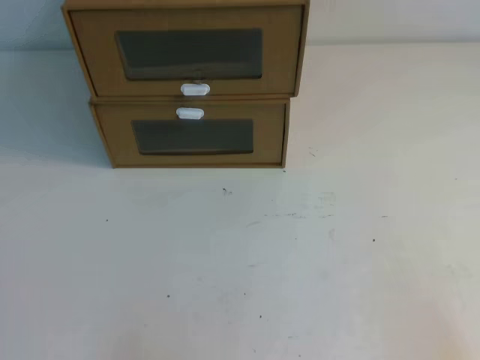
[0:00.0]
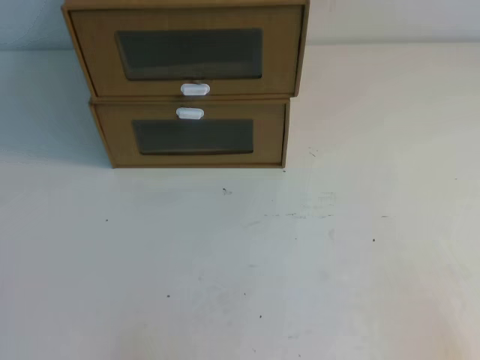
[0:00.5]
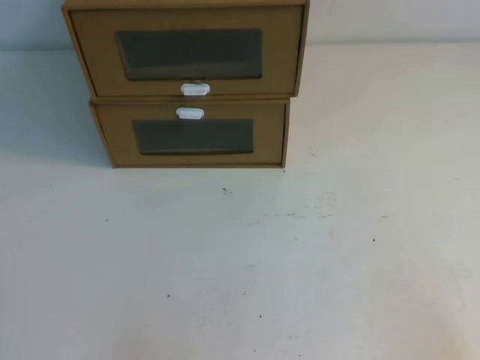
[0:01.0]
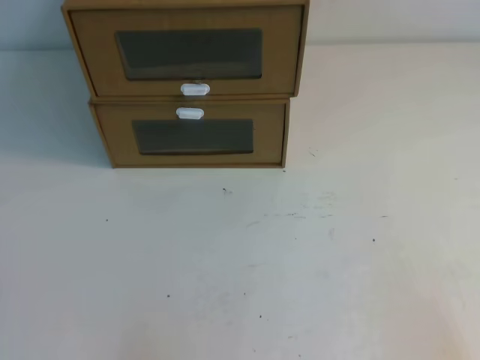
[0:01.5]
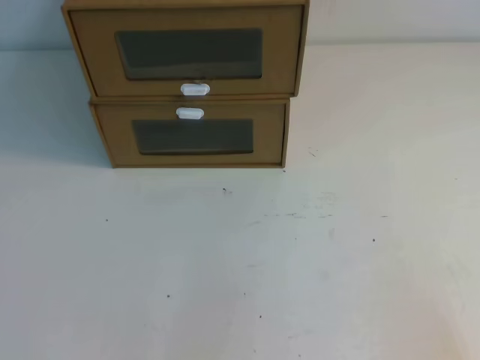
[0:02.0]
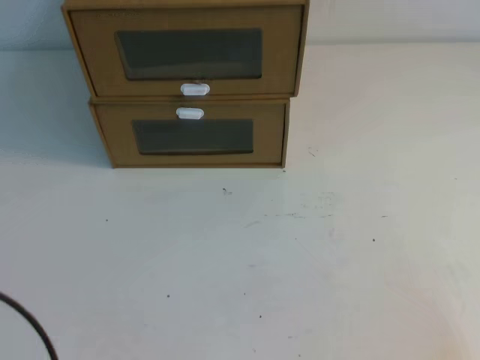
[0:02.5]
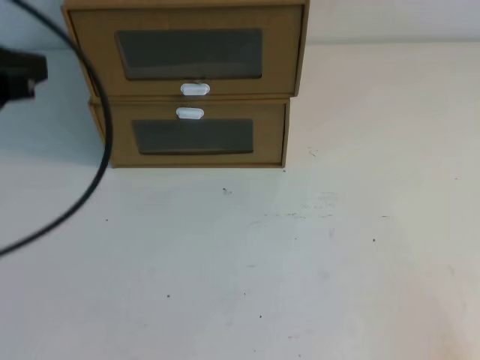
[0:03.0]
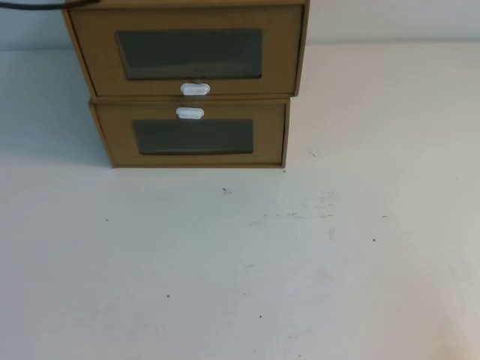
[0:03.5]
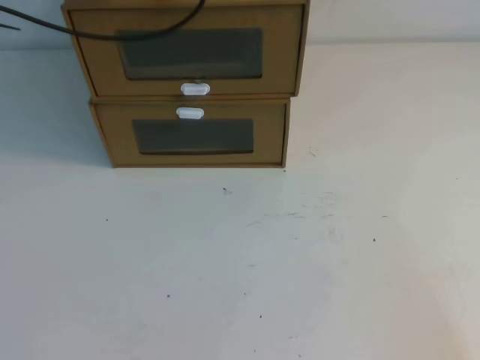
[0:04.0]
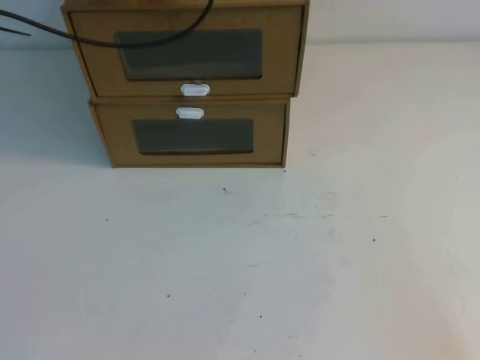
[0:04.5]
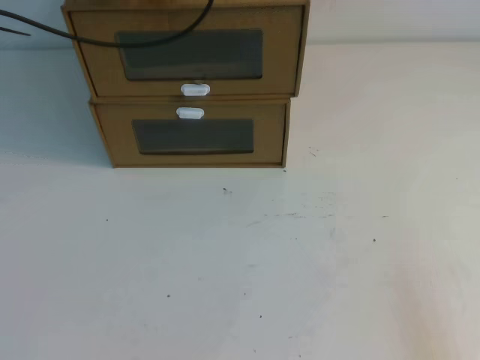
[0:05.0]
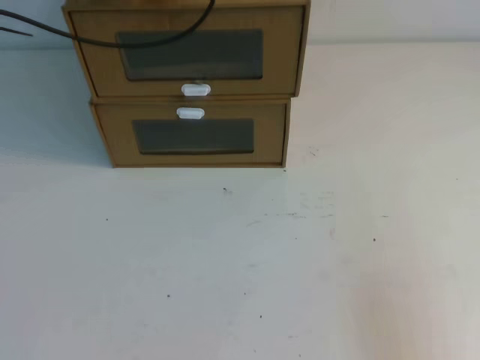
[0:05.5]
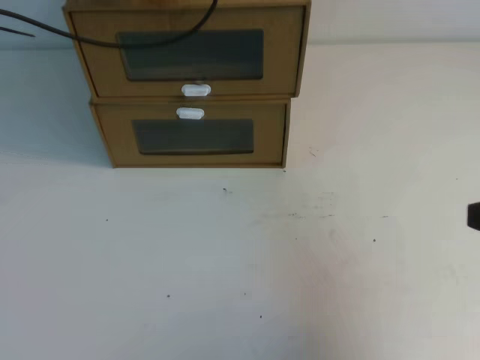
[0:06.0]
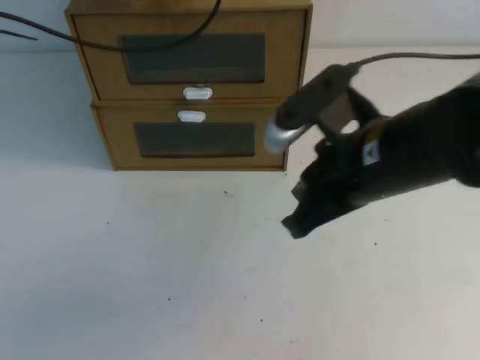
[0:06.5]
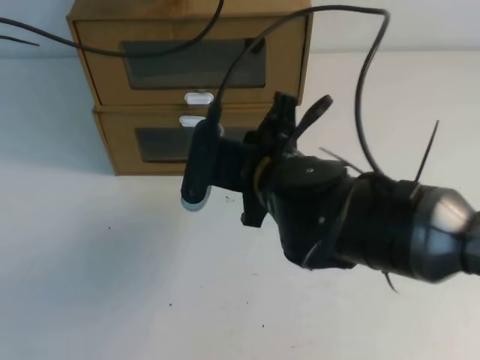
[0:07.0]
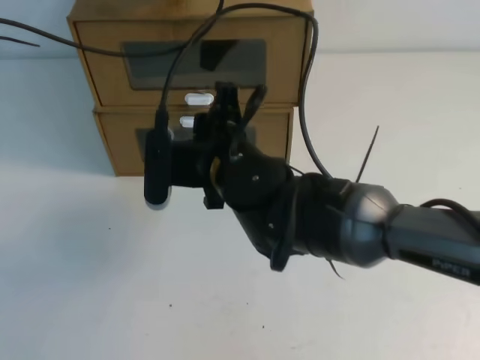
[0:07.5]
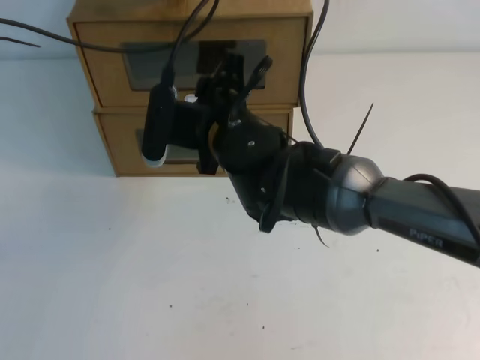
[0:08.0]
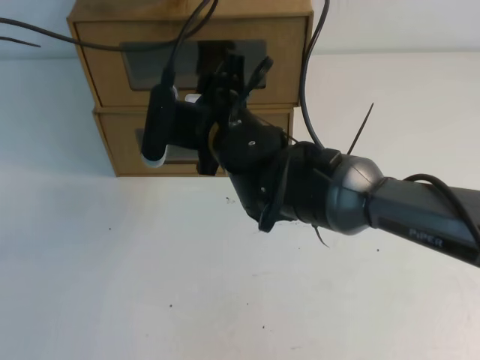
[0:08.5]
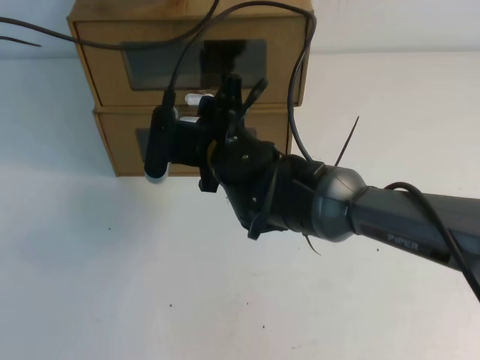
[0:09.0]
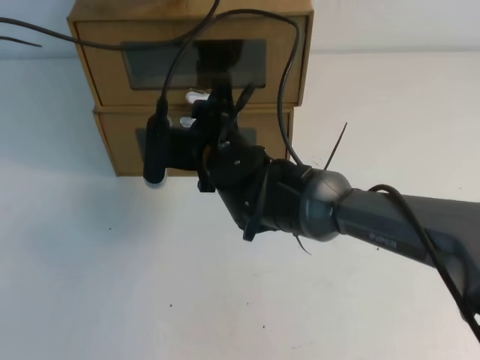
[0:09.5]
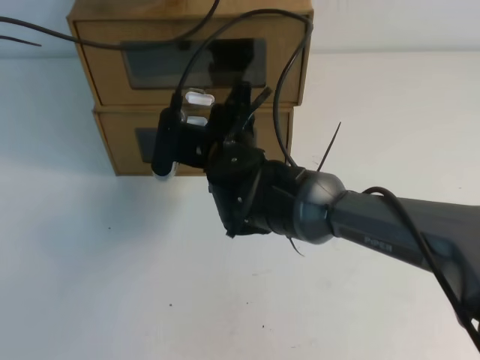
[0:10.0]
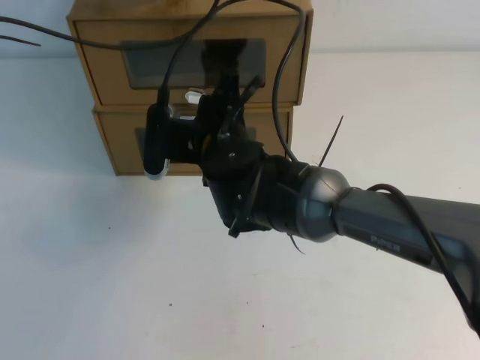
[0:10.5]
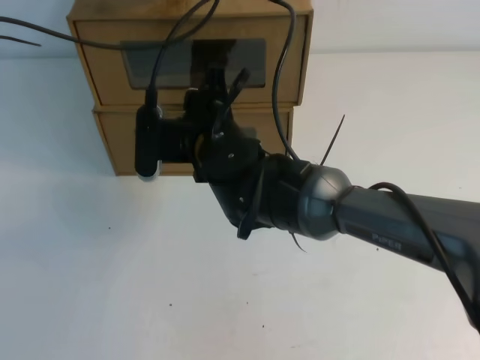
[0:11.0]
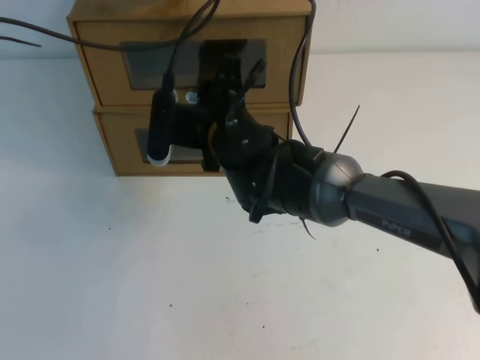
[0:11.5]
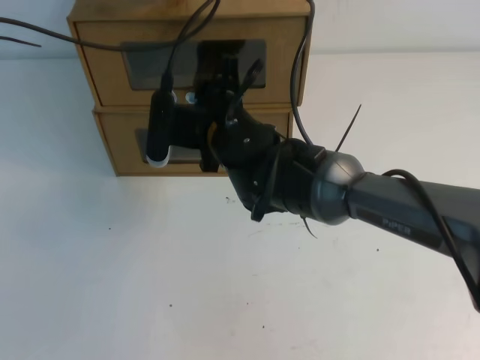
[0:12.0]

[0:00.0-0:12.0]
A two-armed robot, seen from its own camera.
Task of the whole recording: open the shoebox on the table.
0:04.0 to 0:06.0: The right gripper heads upward and forward, covering roughly 15 cm.
0:06.0 to 0:08.0: The right gripper travels to the left and forward by roughly 35 cm, and opens its fingers.
0:08.0 to 0:12.0: The grippers make only small movements.

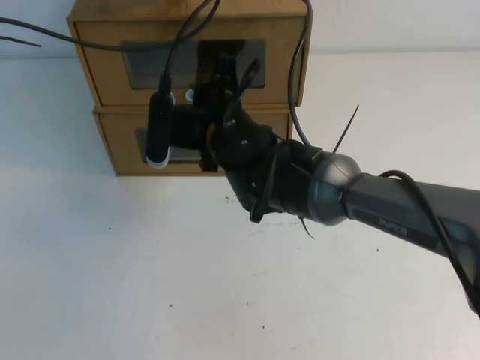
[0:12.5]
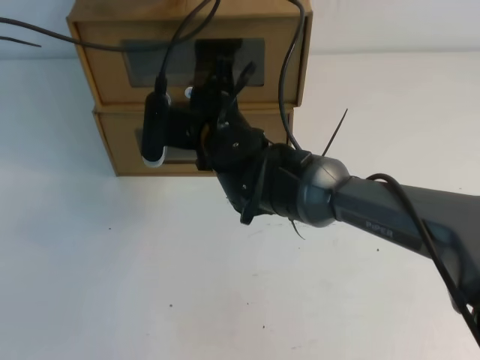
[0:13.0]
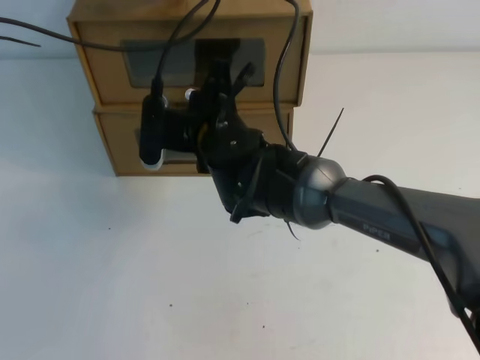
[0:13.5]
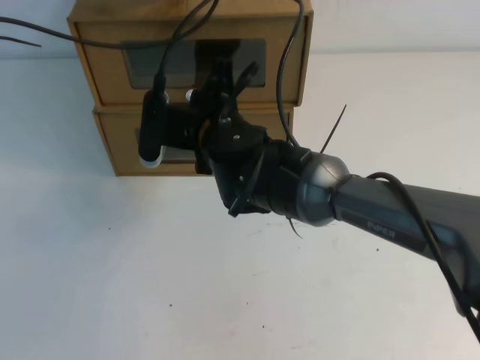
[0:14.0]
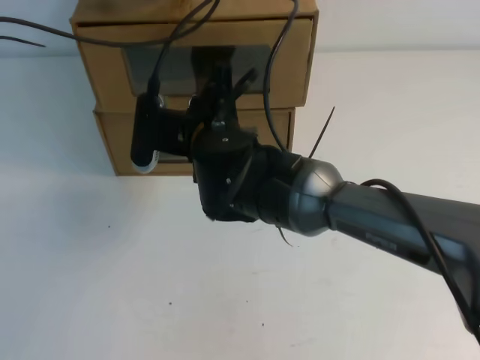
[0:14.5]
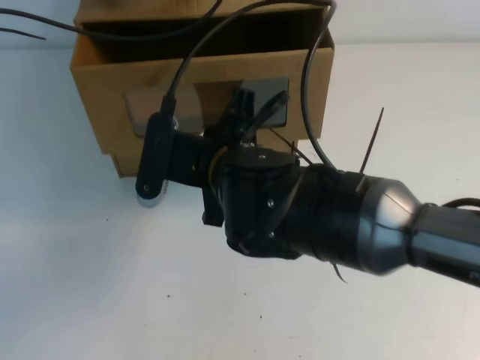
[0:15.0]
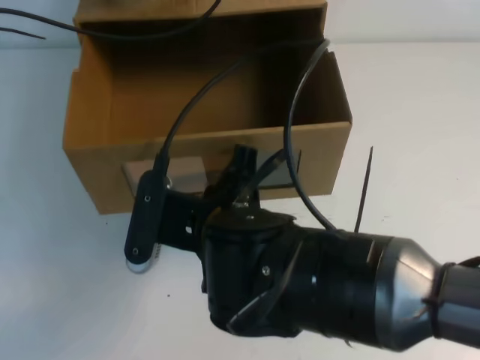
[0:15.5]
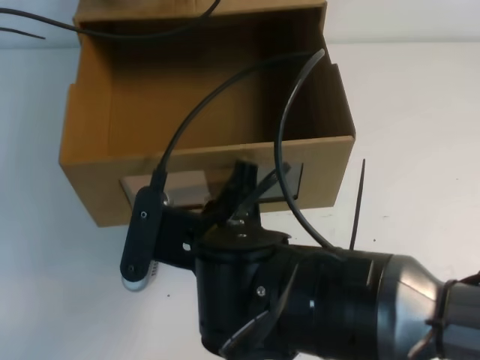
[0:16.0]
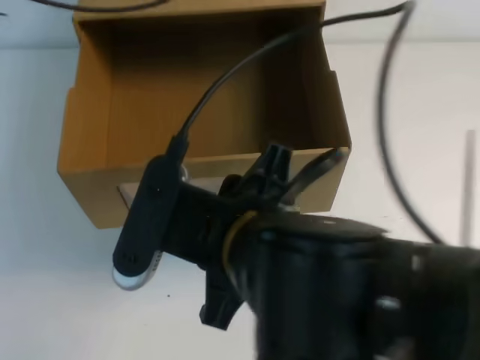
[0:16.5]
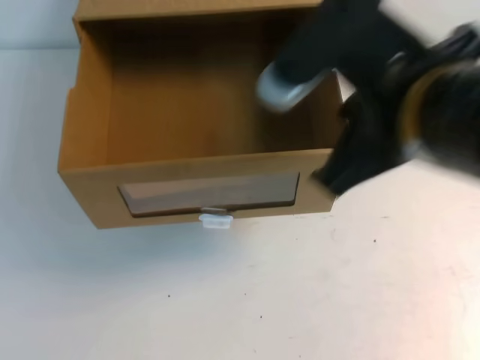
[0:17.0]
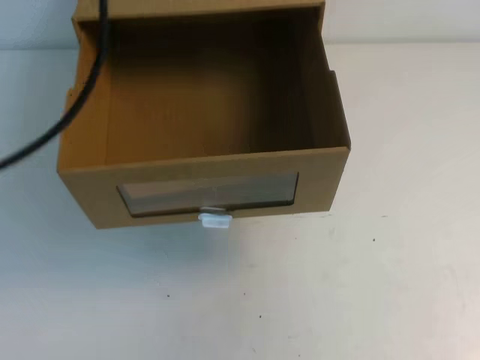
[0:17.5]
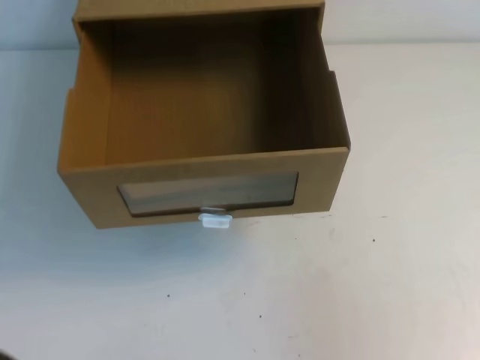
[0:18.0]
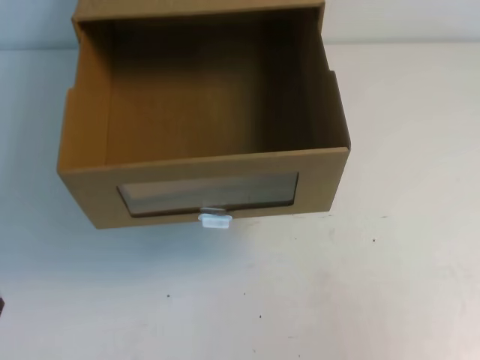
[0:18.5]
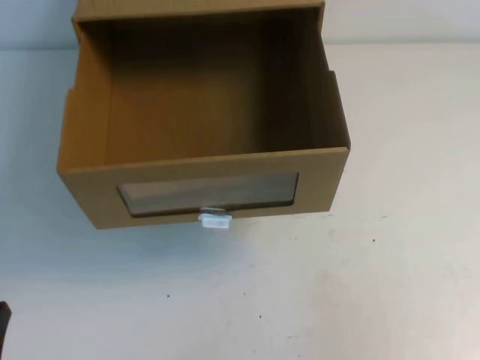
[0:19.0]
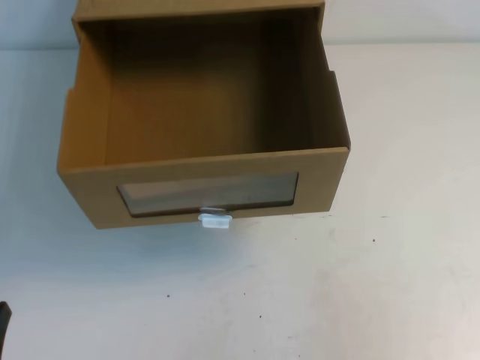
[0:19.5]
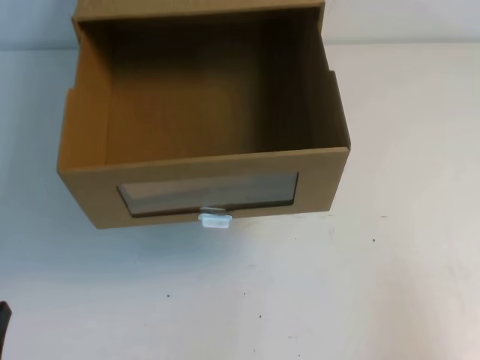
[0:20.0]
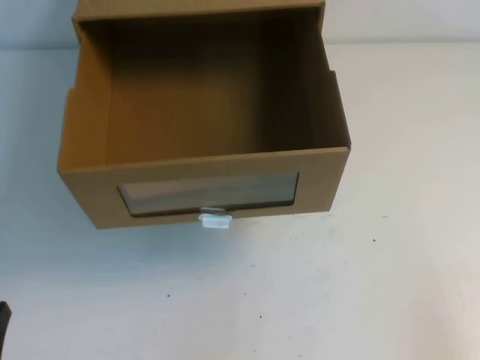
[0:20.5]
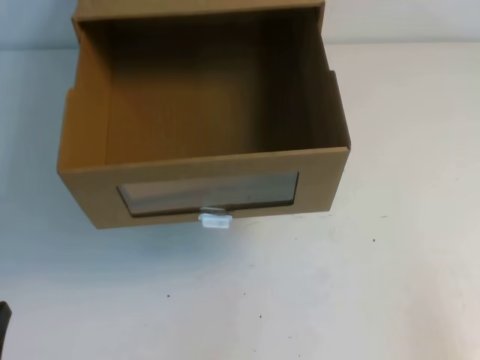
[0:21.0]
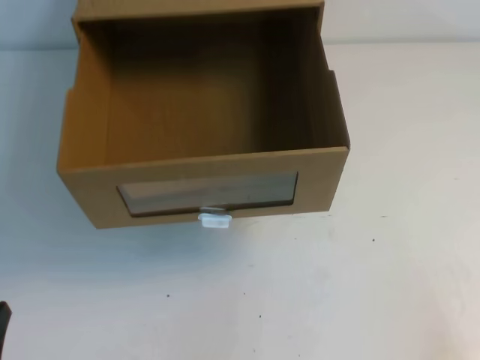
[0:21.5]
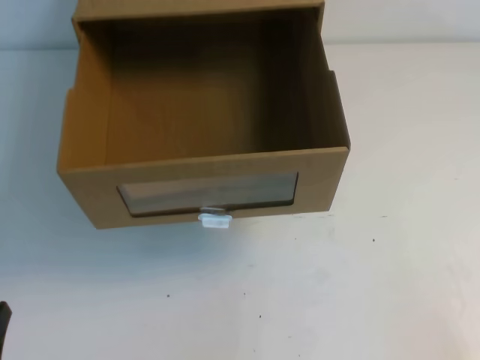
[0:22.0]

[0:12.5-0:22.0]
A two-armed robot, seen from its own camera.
Task of the whole recording: open the shoebox on the table.
0:12.5 to 0:14.5: The right gripper closes.
0:14.5 to 0:16.5: The right gripper shifts approximately 20 cm backward, and opens its fingers.
0:16.5 to 0:18.0: The left gripper shifts some 35 cm backward; the right gripper travels to the right by about 30 cm, and closes its fingers.

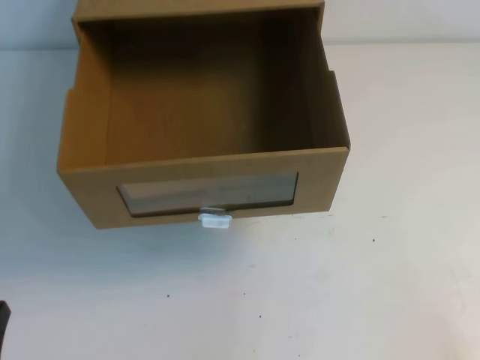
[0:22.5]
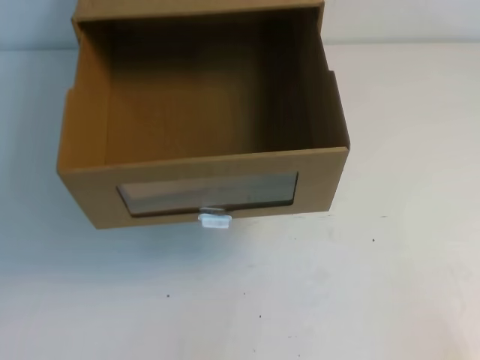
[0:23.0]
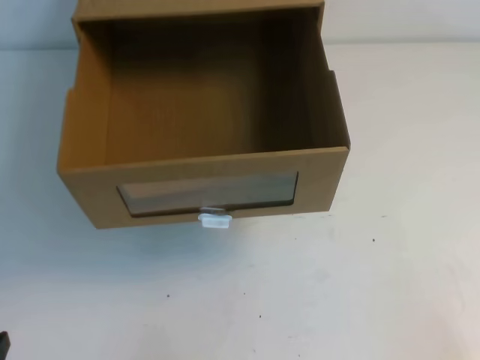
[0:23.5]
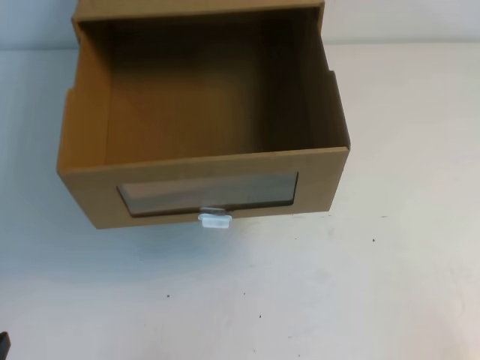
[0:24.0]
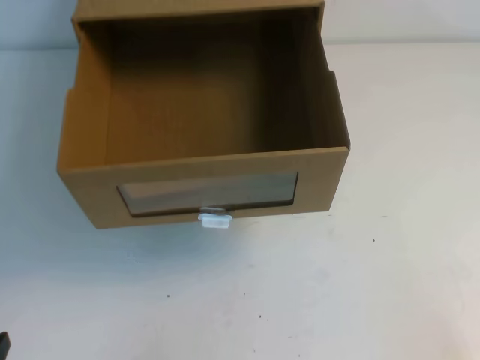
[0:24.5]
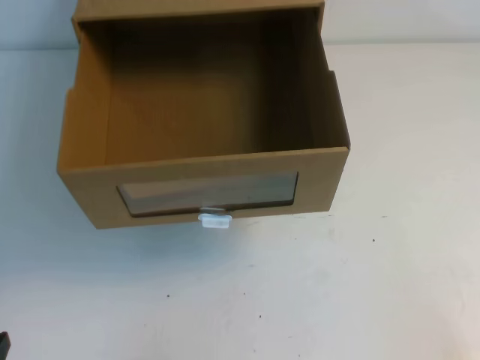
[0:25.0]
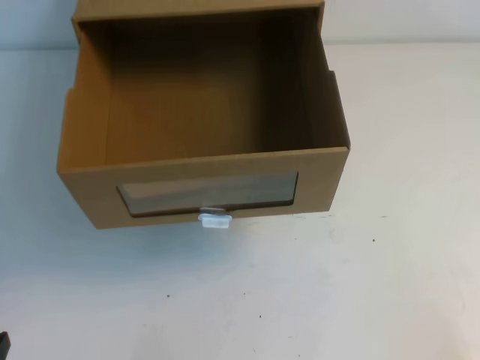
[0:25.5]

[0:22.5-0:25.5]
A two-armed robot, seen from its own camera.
Task of the whole recording: open the shoebox on the table.
0:24.0 to 0:25.5: Neither gripper changes place.

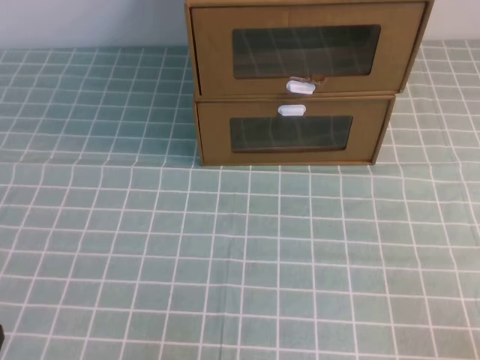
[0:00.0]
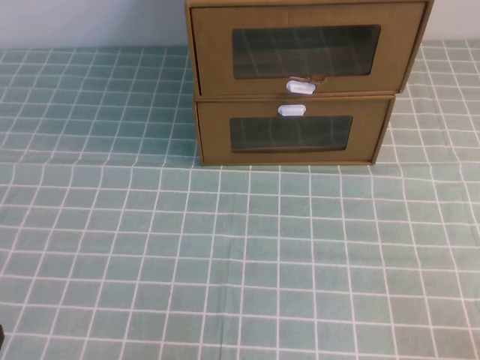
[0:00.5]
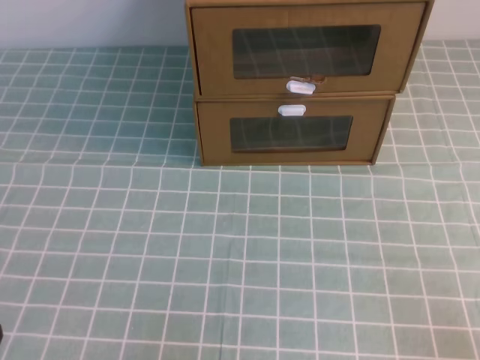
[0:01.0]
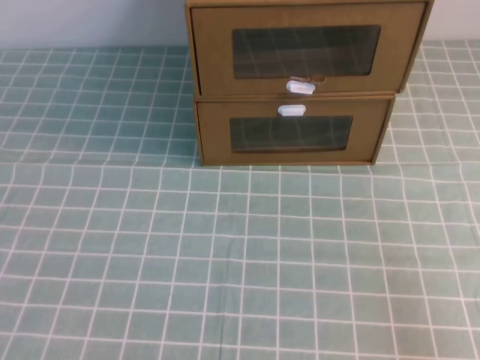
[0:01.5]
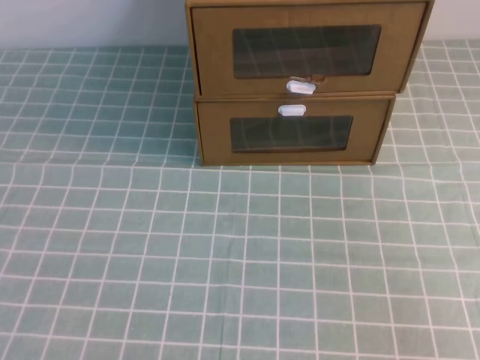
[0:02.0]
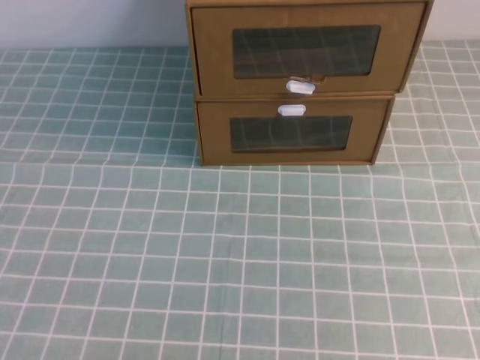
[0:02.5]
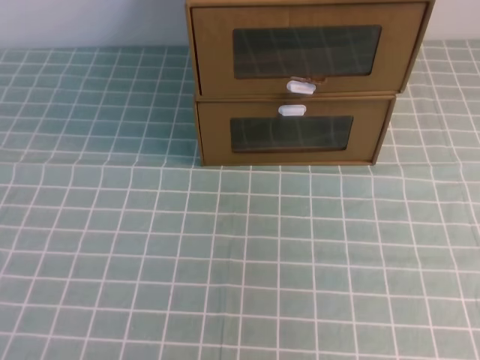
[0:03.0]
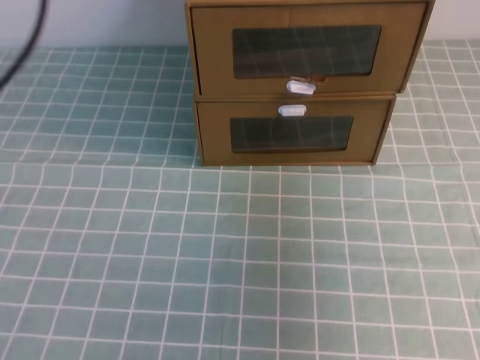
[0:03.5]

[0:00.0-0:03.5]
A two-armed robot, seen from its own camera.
Task of the whole recording: open the shoebox on the cyan tablecloth.
0:02.0 to 0:03.5: Both grippers travel together forward and upward, roughly 30 cm.
